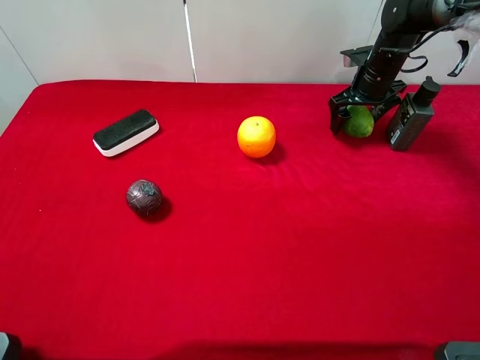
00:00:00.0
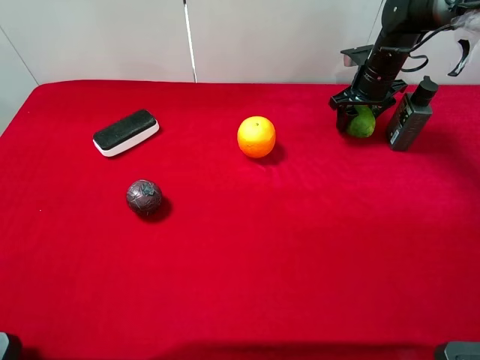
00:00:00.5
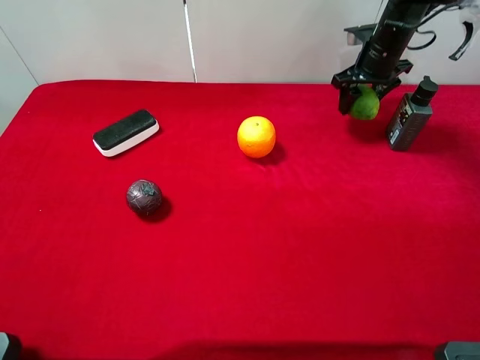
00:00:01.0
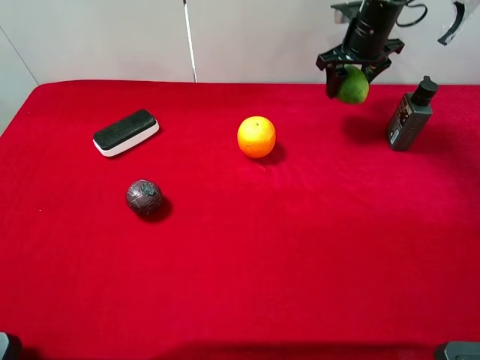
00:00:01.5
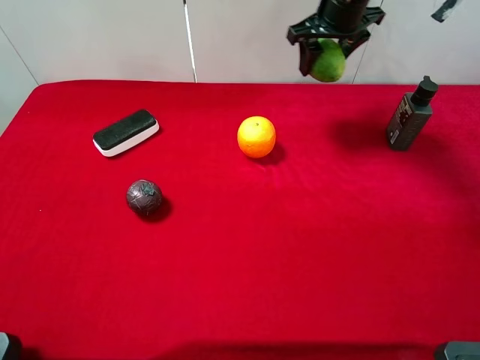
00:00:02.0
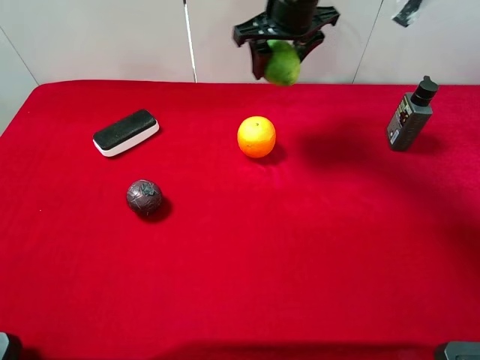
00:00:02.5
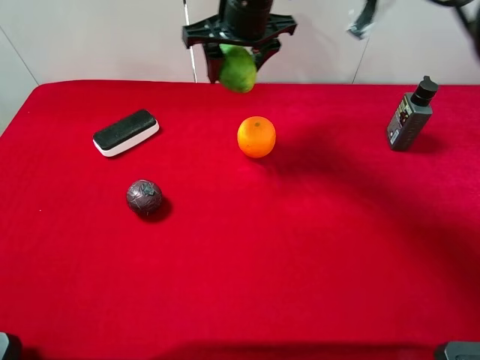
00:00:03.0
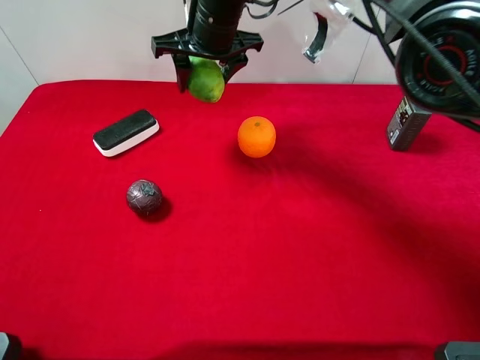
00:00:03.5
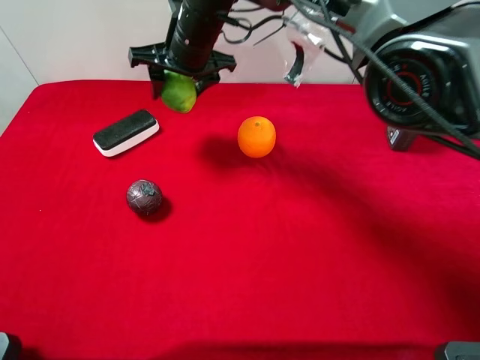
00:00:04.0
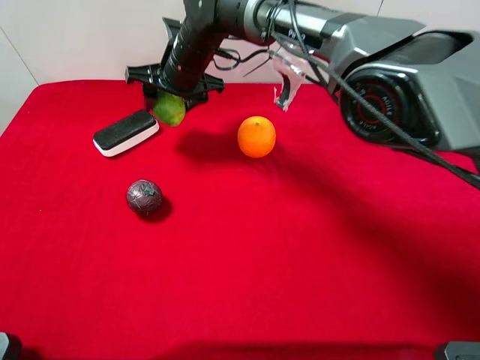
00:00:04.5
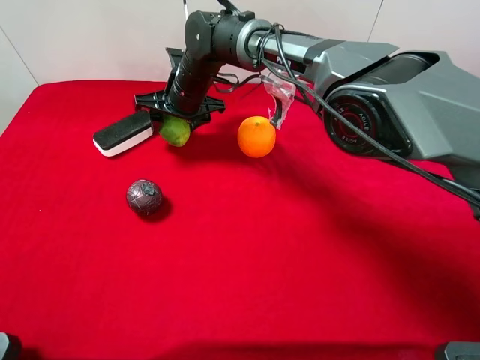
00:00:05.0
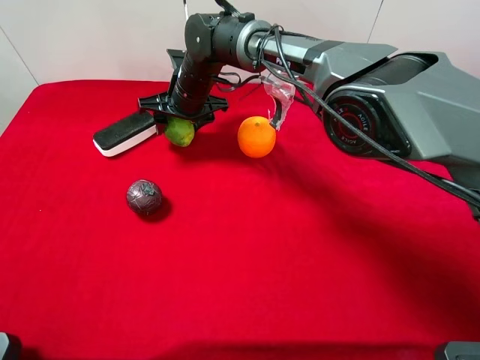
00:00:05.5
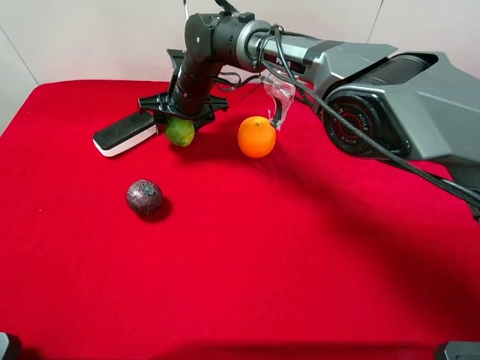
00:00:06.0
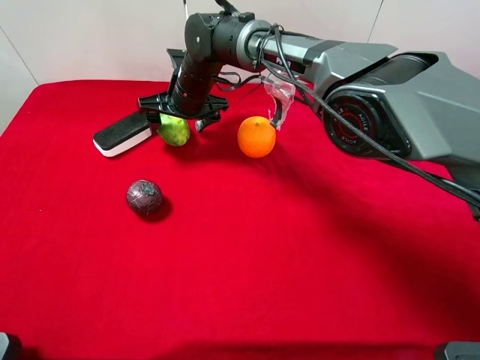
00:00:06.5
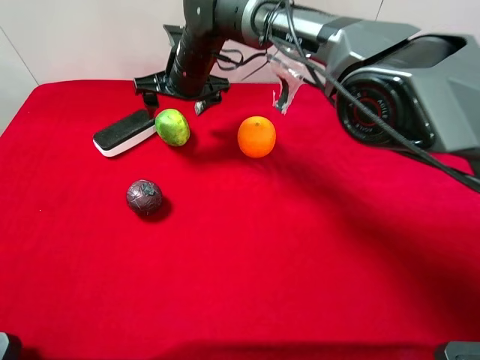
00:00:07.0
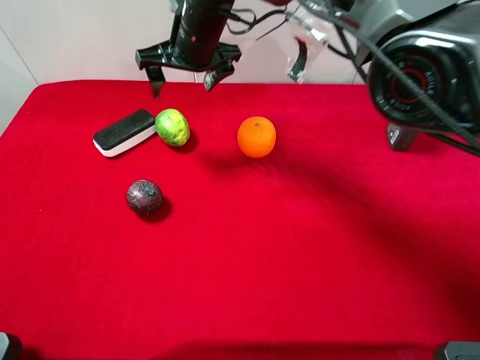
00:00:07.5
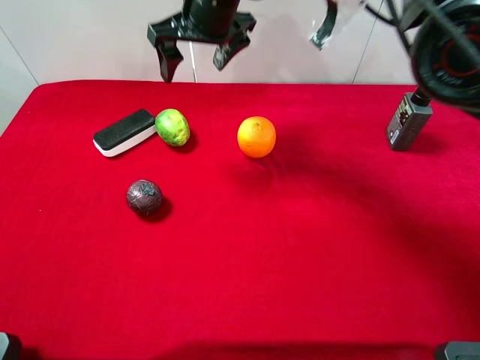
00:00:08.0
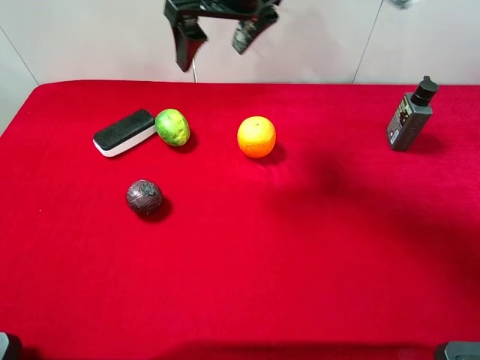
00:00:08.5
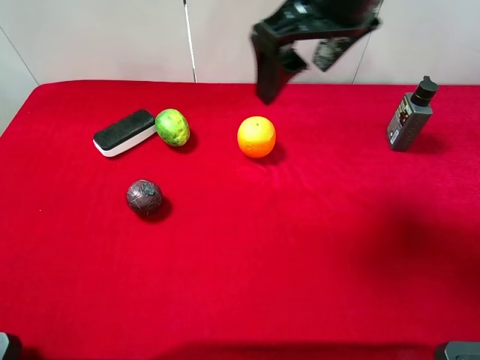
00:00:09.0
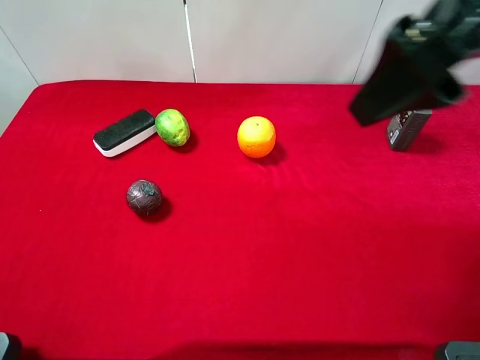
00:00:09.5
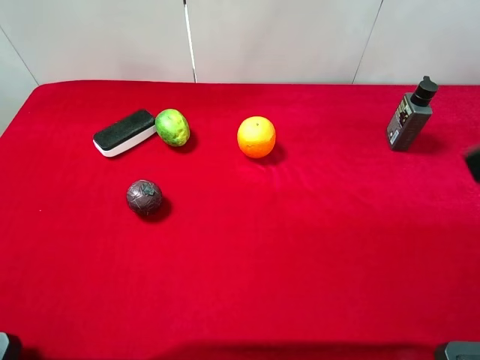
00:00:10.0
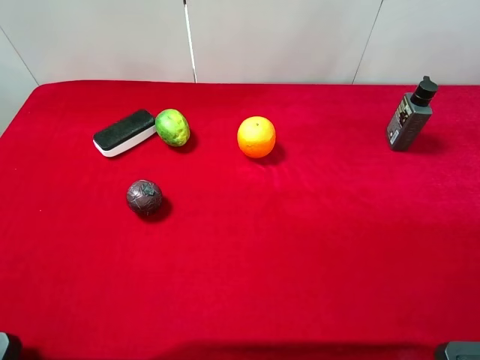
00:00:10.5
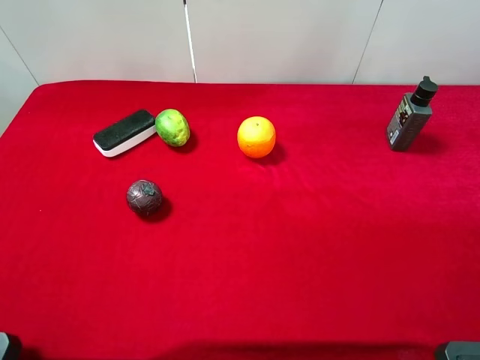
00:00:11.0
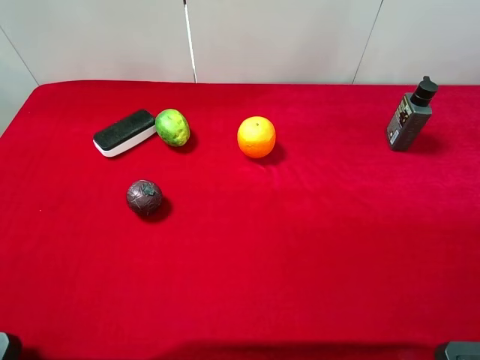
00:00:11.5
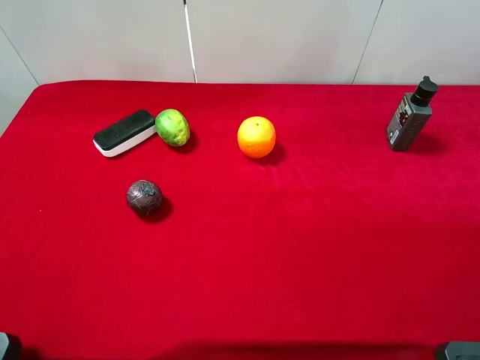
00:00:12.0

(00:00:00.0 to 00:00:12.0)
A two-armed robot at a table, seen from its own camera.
Task of the whole recording: the gripper move the object.
Step, 00:00:01.0 - 00:00:07.5: Place the green lemon on the table with the right gripper.
00:00:00.0 - 00:00:02.0: The right gripper is displaced upward and to the left by some 15 cm, and closes its fingers.
00:00:02.0 - 00:00:04.0: The right gripper is displaced to the left by some 20 cm.
00:00:04.0 - 00:00:06.0: The right gripper moves downward, some 10 cm.
00:00:06.0 - 00:00:08.0: The right gripper is displaced upward by approximately 15 cm, and opens.
00:00:08.0 - 00:00:10.0: The right gripper moves backward and to the right, approximately 40 cm.

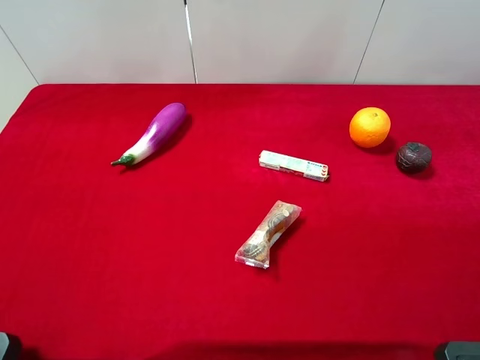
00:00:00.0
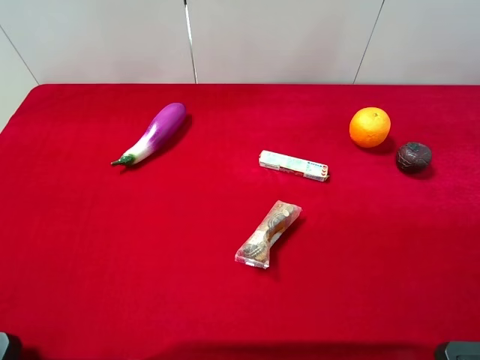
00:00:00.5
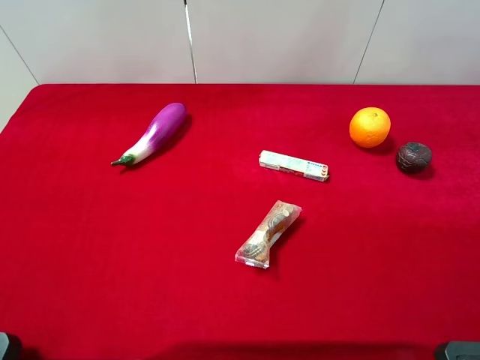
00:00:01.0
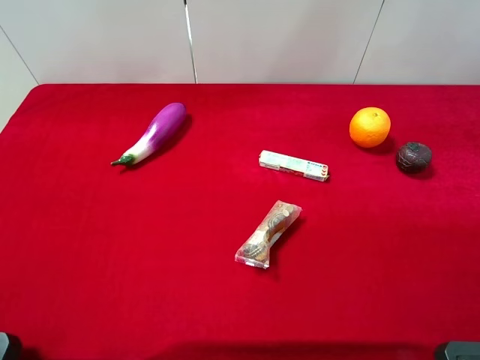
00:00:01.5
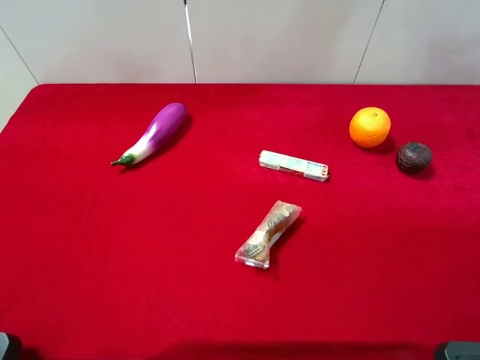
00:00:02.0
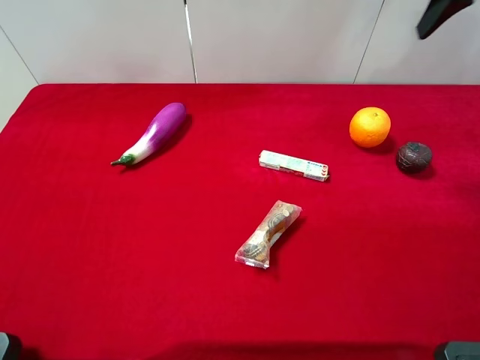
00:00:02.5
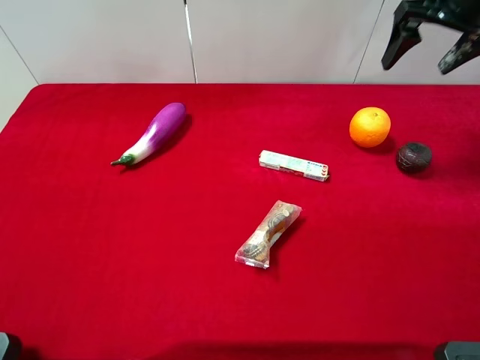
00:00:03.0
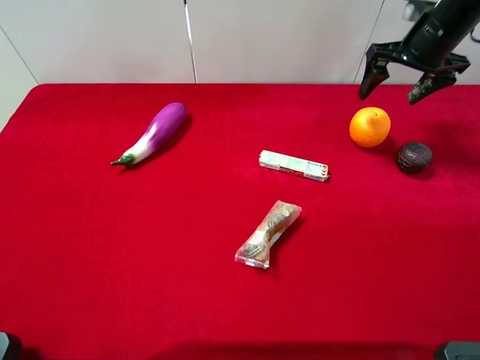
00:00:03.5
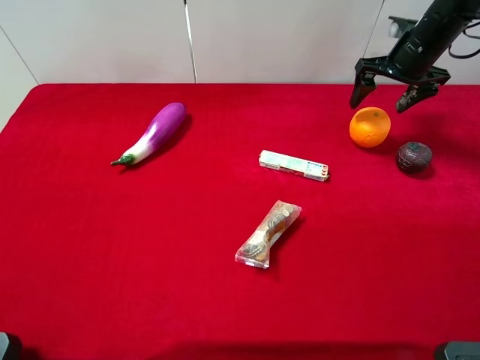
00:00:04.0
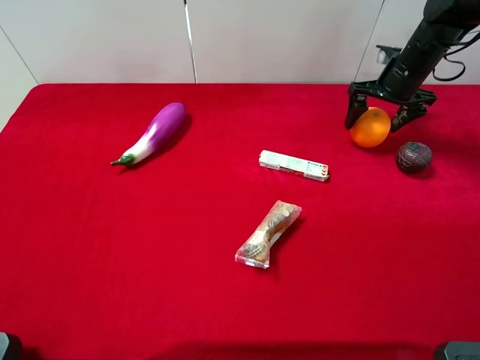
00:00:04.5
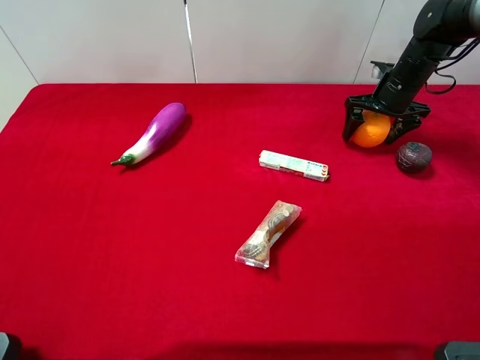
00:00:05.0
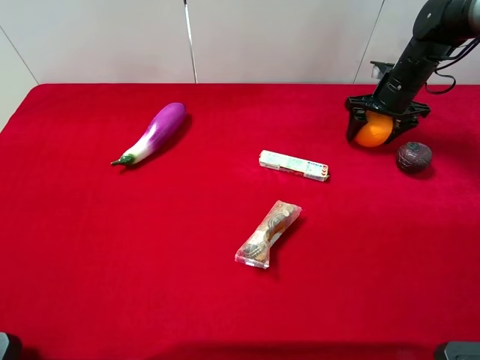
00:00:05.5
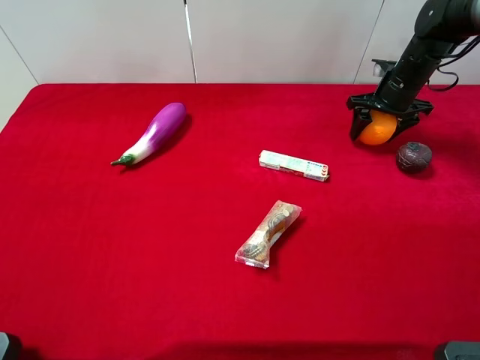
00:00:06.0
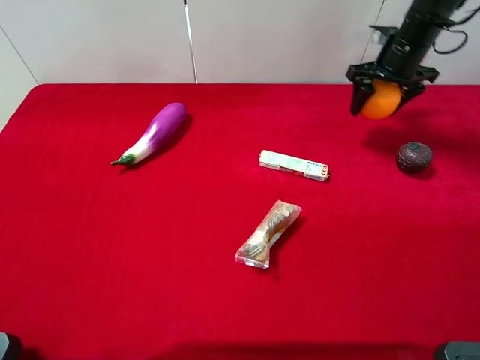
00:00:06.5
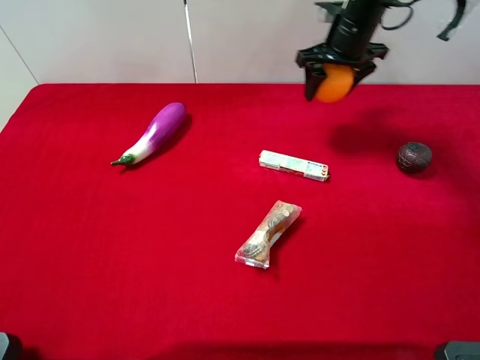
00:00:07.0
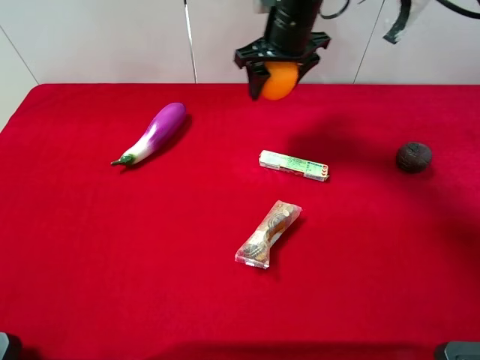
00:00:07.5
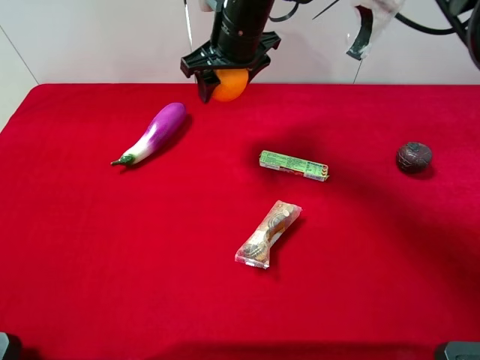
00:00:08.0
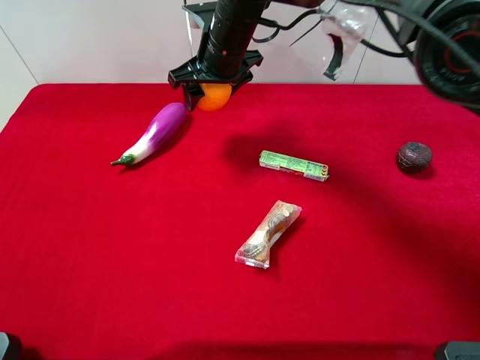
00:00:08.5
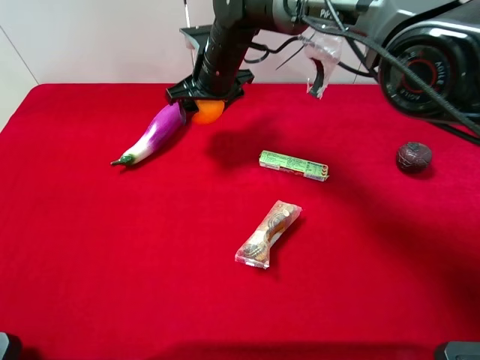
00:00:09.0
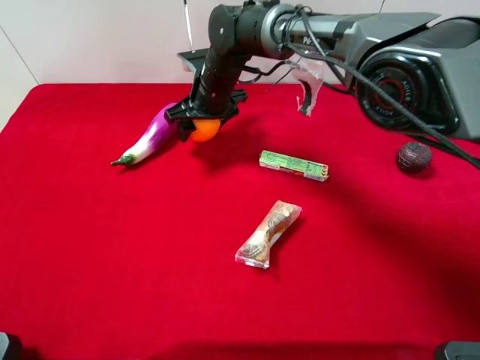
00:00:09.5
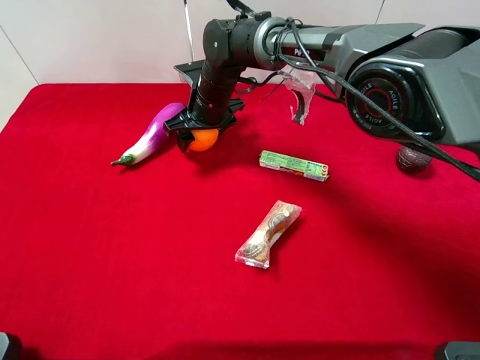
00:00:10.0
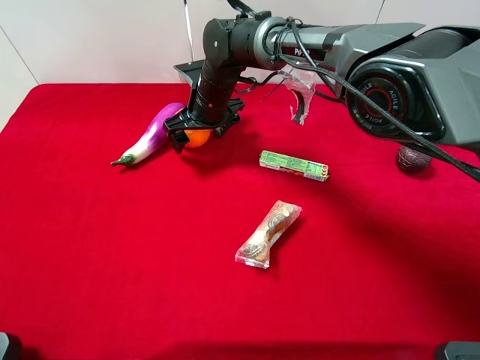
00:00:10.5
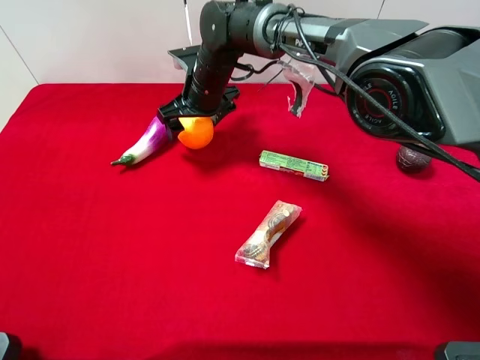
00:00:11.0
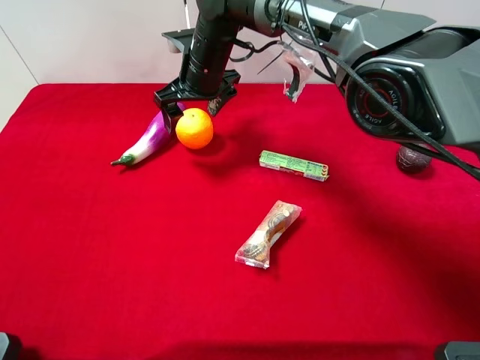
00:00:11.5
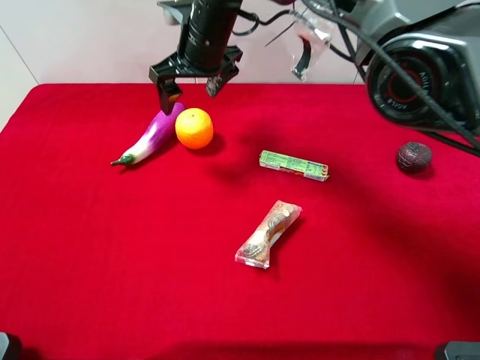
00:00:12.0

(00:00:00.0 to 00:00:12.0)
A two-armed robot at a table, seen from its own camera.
Task of the whole recording: the gripper move the object.
Step, 00:00:00.0 - 00:00:05.5: Grasp the orange with the right gripper.
Step, 00:00:06.0 - 00:00:12.0: Place the orange on the table with the right gripper.
00:00:02.0 - 00:00:04.0: The right gripper moves downward and forward, about 30 cm.
00:00:04.0 - 00:00:06.0: The right gripper shifts approximately 5 cm downward, and closes.
00:00:06.0 - 00:00:08.0: The right gripper heads to the left, covering about 30 cm.
00:00:08.0 - 00:00:10.0: The right gripper travels downward by about 10 cm.
00:00:10.0 - 00:00:12.0: The right gripper travels upward by some 10 cm, and opens its fingers.

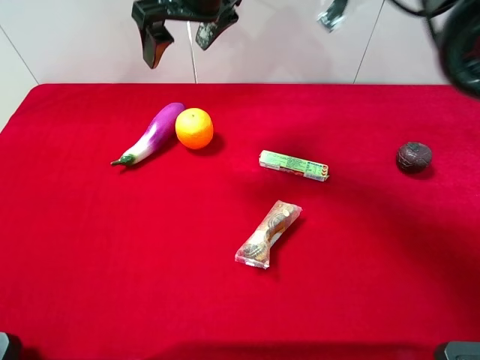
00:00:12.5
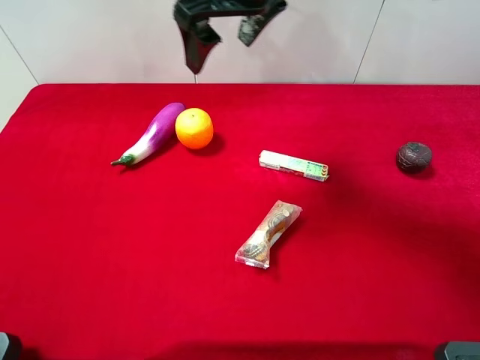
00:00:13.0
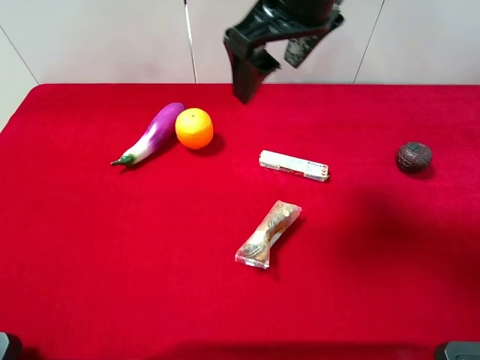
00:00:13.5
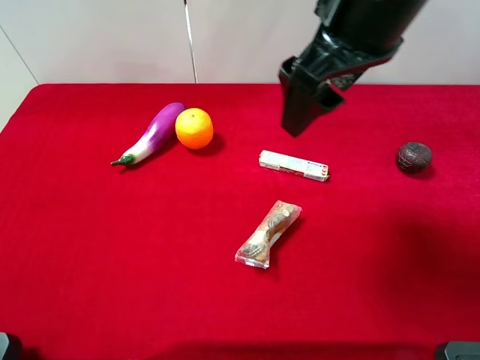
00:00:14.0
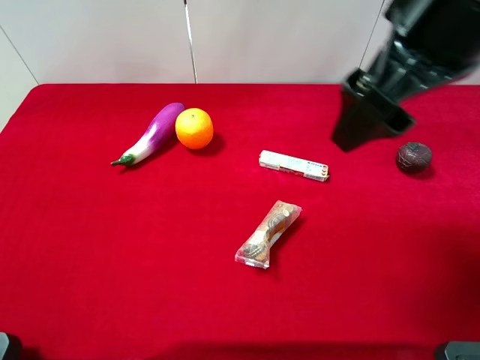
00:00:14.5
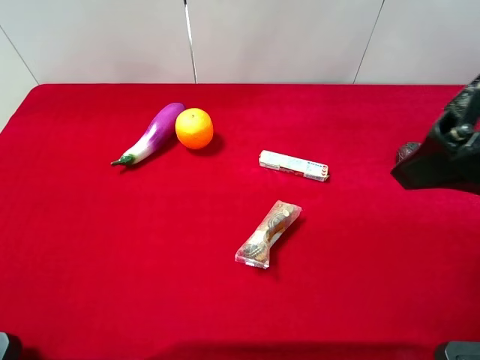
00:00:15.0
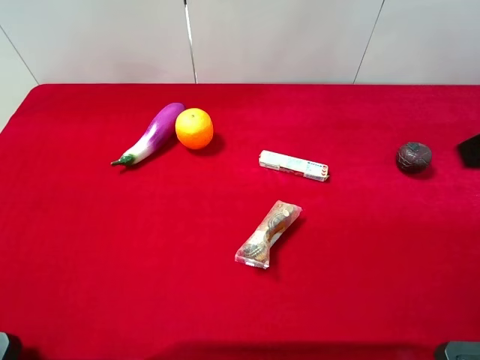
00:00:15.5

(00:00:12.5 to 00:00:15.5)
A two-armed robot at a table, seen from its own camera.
Task of the whole recording: the gripper move the object.
00:00:12.5 - 00:00:14.0: The right gripper travels to the right and backward by some 20 cm.
00:00:14.0 - 00:00:15.5: The right gripper goes about 20 cm to the right and backward.
